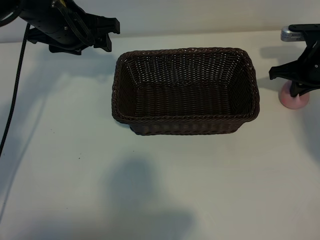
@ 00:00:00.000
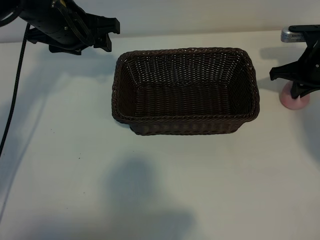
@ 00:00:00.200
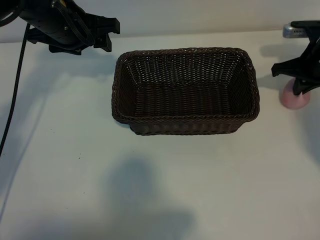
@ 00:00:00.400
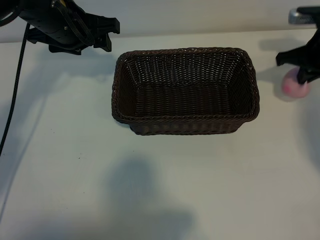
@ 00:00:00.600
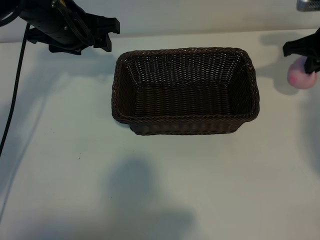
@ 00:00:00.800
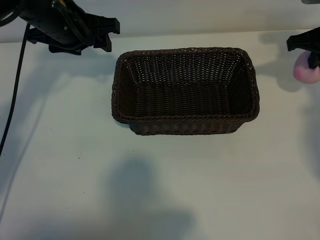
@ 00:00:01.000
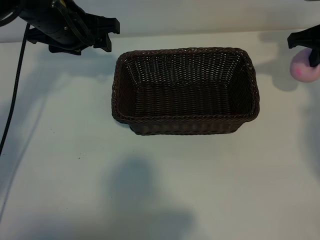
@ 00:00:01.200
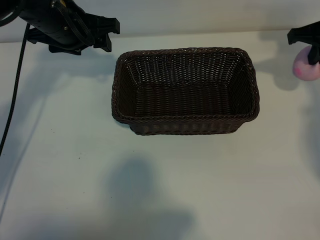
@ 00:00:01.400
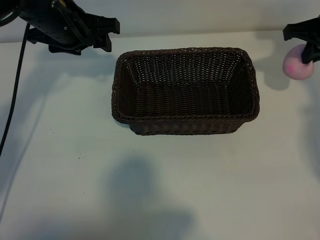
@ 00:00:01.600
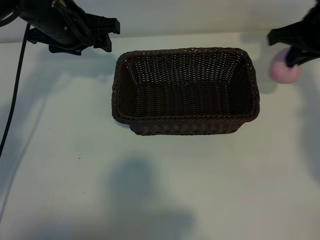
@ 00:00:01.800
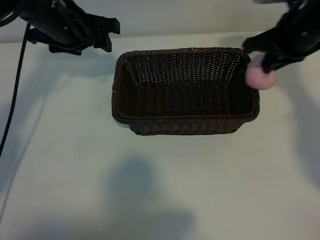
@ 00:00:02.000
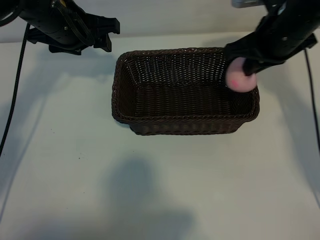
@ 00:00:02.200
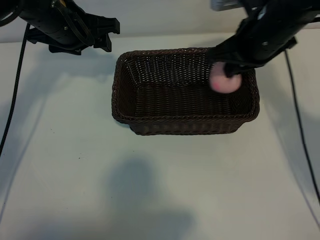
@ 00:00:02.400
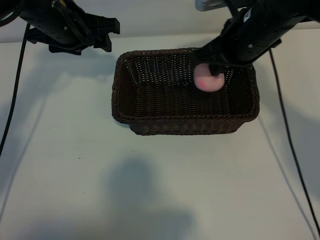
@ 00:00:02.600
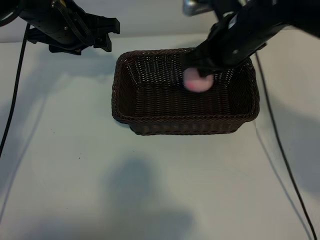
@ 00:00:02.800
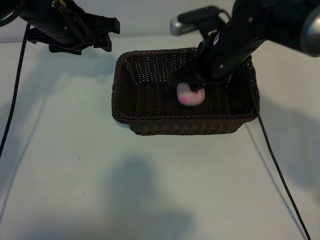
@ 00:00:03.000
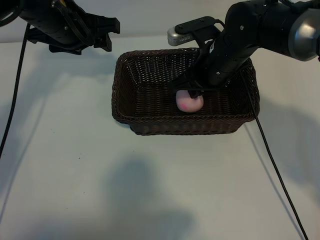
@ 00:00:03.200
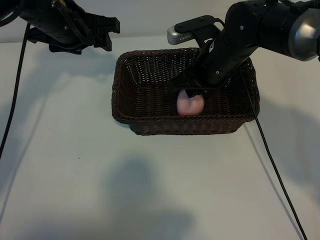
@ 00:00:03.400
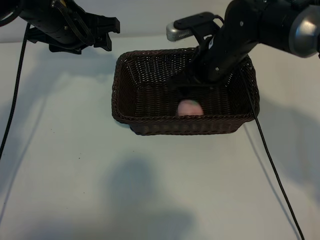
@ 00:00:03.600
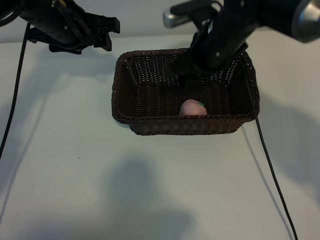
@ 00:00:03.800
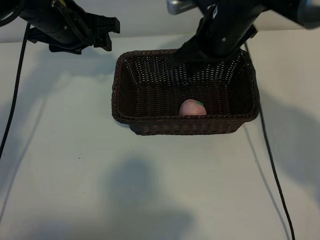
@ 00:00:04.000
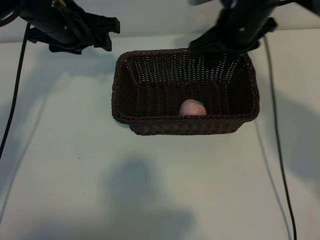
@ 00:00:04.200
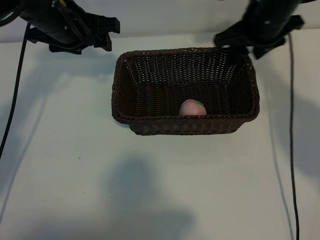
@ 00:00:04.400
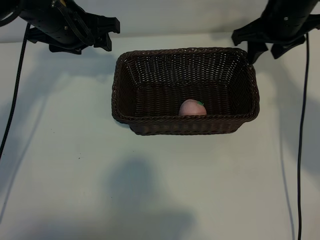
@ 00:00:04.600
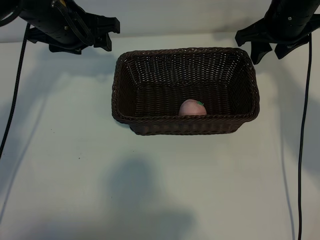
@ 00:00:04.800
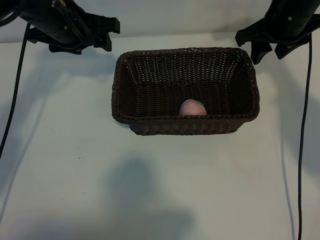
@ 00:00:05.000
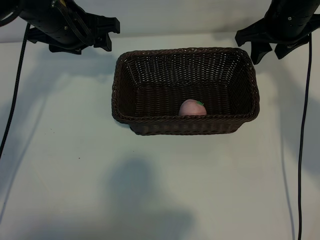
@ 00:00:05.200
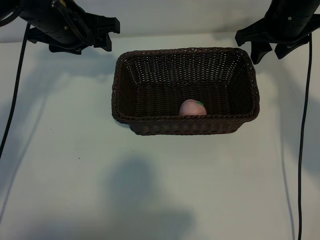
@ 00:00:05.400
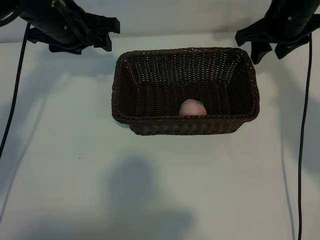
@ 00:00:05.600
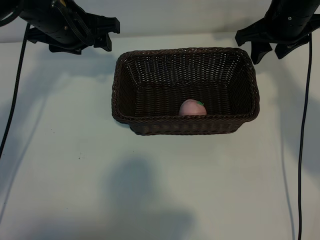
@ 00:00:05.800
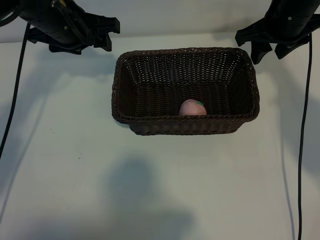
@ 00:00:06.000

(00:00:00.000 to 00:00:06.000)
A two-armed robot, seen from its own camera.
Task of the whole recording: pick up the peach and put it into the basket.
Step, 00:00:00.000 - 00:00:03.600: Place the peach in the basket with right gripper.
